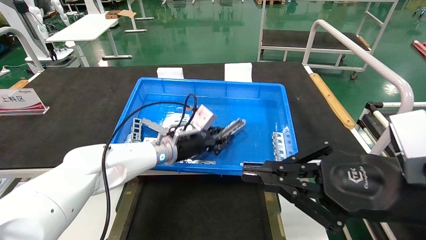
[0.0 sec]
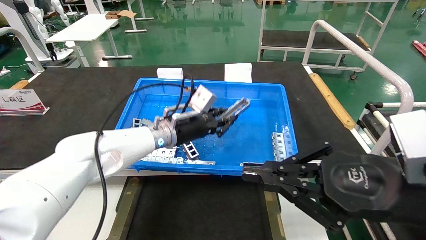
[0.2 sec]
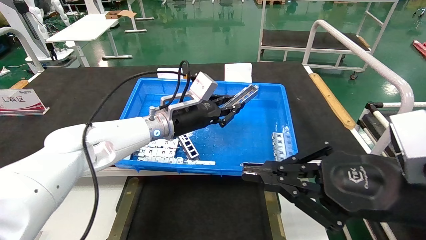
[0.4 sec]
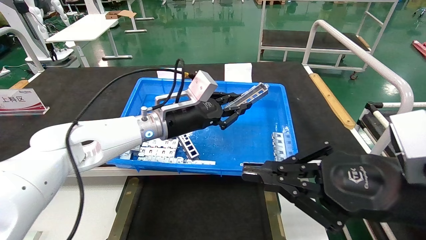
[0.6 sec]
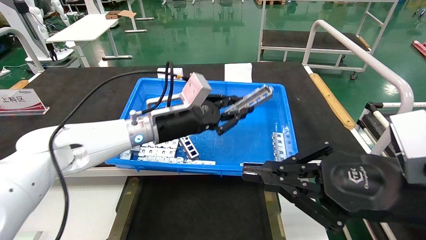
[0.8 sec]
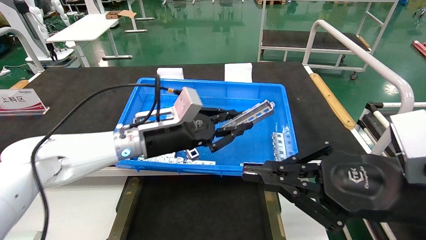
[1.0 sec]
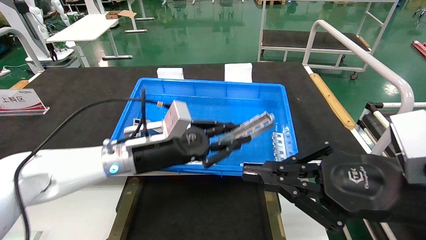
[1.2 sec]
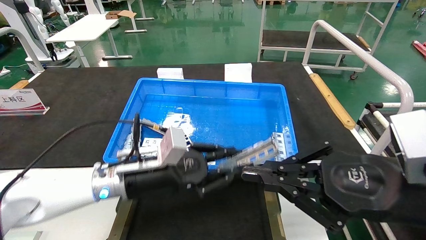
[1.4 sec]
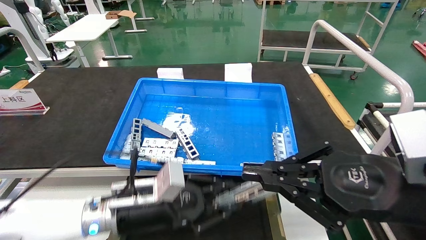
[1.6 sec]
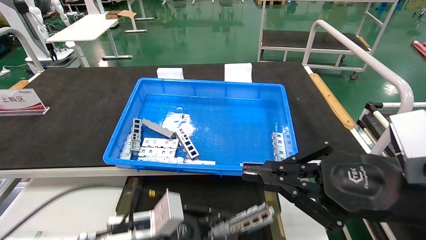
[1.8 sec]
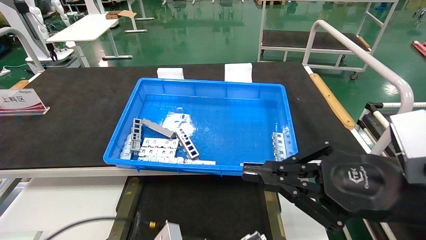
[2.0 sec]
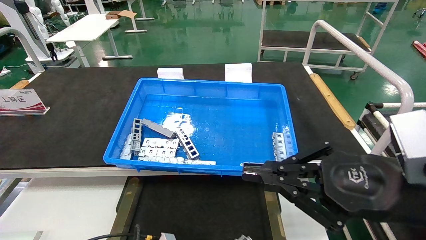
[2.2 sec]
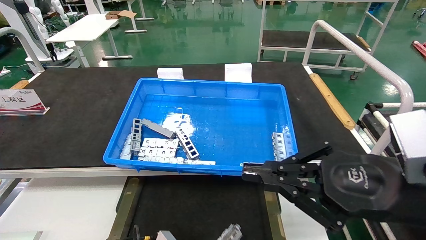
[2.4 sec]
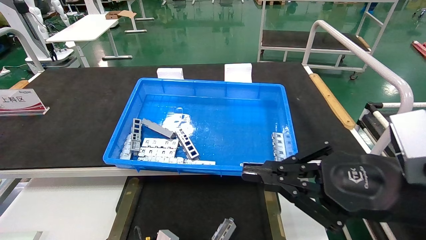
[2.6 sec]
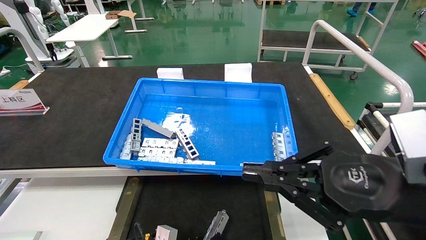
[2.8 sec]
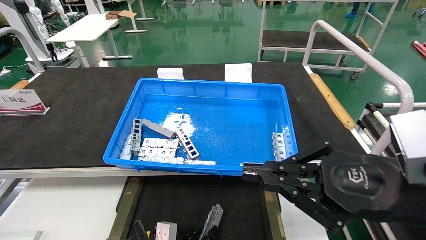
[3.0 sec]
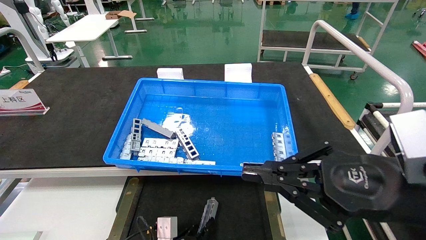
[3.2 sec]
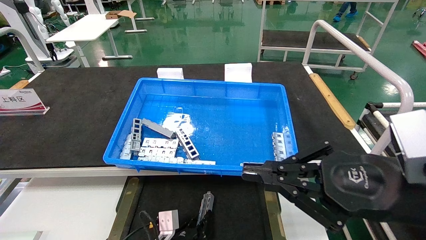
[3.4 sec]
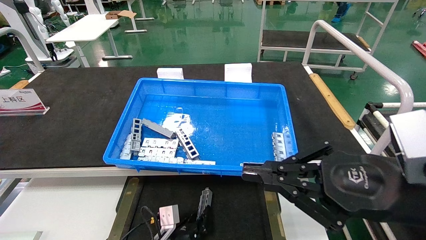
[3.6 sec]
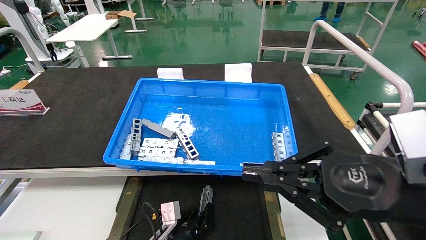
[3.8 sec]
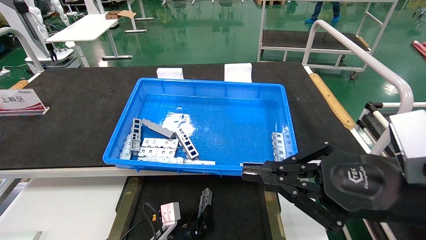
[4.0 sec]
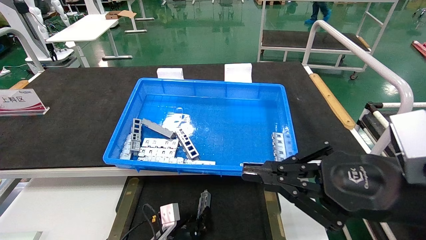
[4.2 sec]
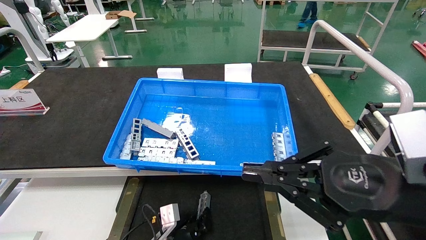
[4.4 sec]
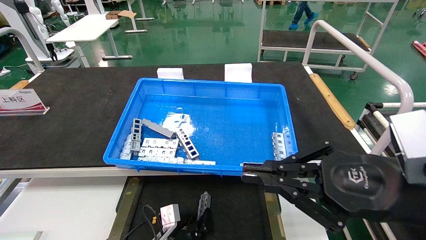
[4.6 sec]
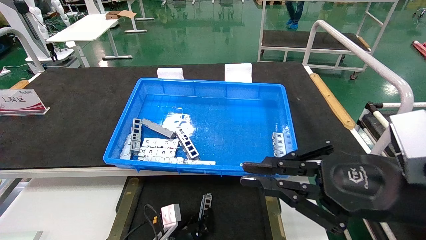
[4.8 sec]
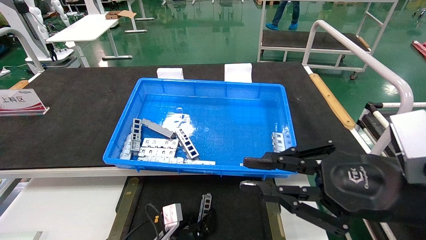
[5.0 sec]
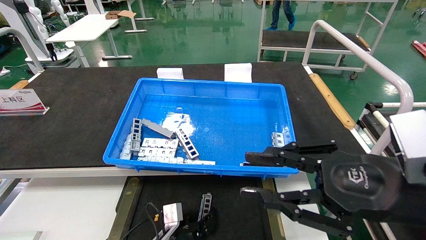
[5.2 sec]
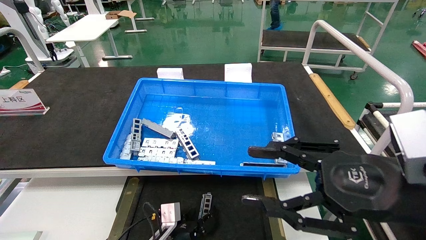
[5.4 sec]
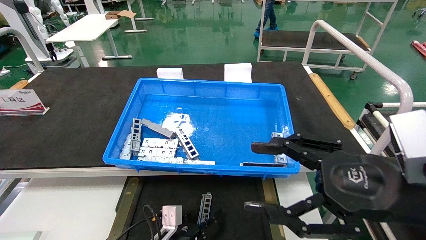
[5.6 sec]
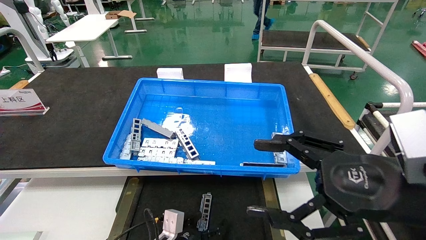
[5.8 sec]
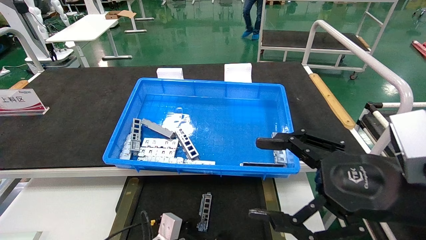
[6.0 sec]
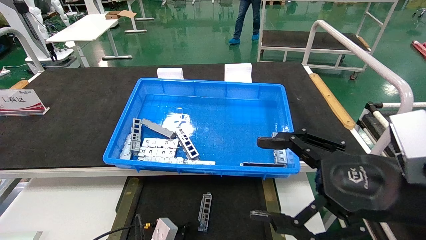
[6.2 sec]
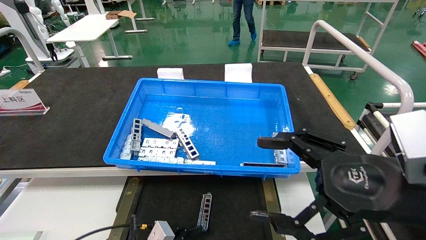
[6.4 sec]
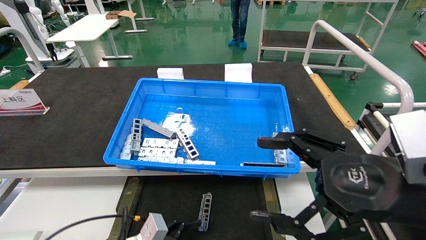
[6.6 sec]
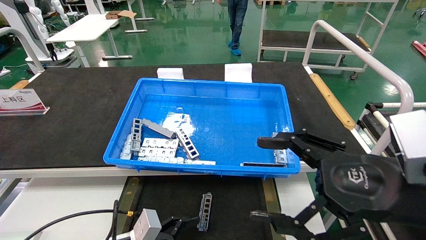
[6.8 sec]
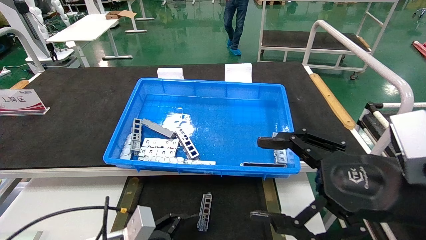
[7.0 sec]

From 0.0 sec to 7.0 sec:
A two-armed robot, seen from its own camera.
Task of the whole recording: Grasp the part with one hand and place it on the black container.
Step, from 0.0 sec to 5.0 sec: Place the front USB bracket into the box.
From 0.0 sec to 1.4 sec: The left gripper heads backward, covering approximately 15 cm.
From 1.4 sec to 2.8 sec: The left gripper shifts roughly 25 cm downward.
From 2.8 sec to 4.2 sec: The left gripper is displaced forward by approximately 10 cm.
From 4.2 sec to 5.6 sec: The left gripper opens its fingers, while the right gripper opens its fingers.
From 5.6 sec to 7.0 sec: The left gripper travels upward, to the left and backward by approximately 15 cm. The right gripper opens.
